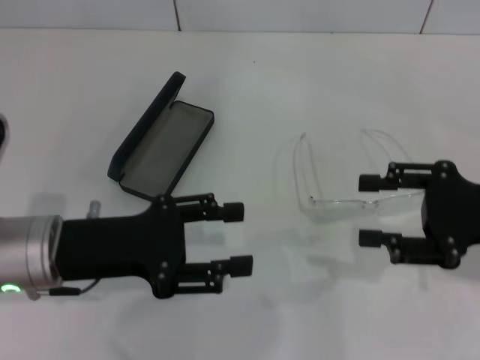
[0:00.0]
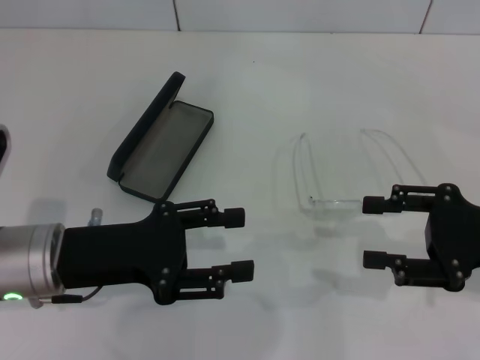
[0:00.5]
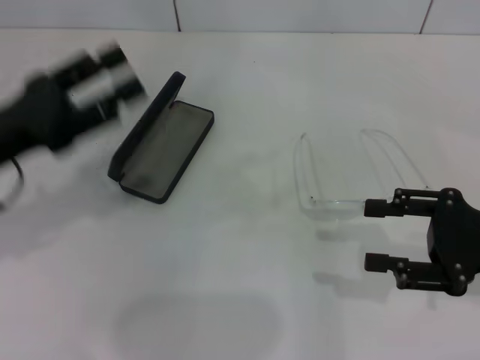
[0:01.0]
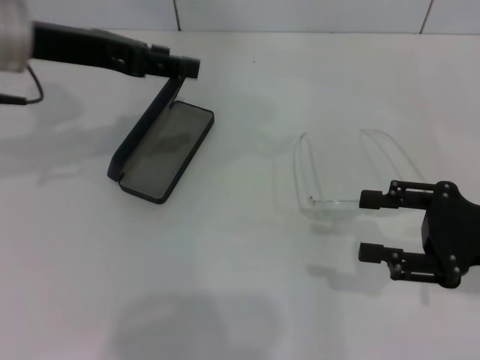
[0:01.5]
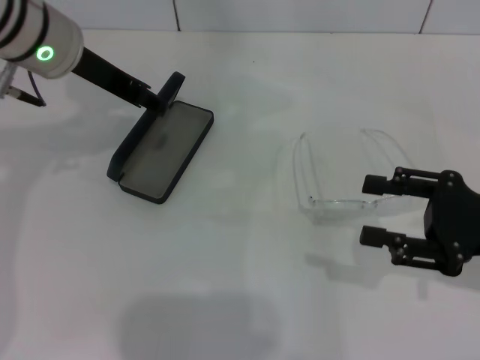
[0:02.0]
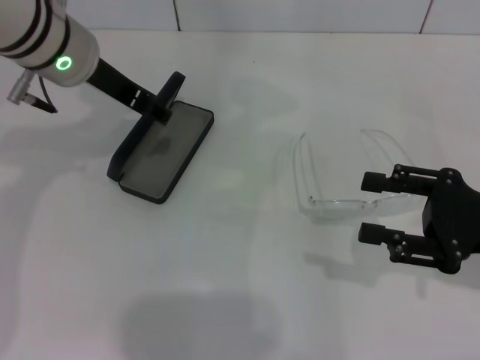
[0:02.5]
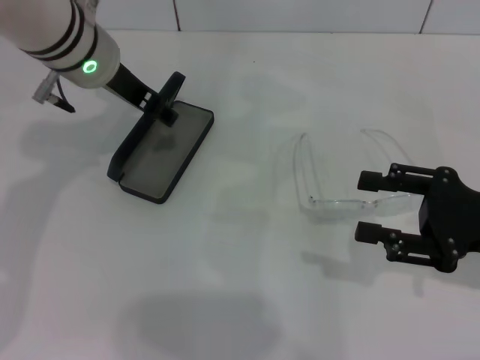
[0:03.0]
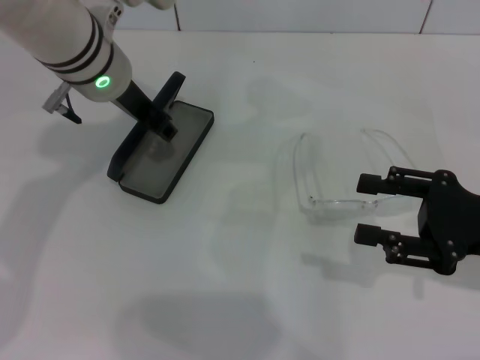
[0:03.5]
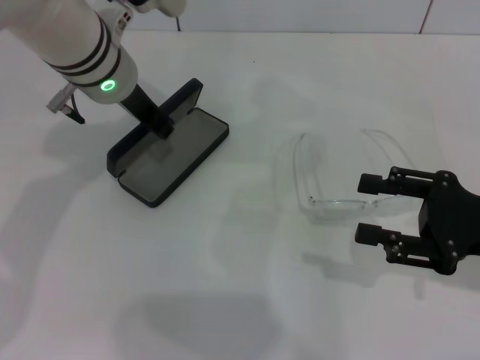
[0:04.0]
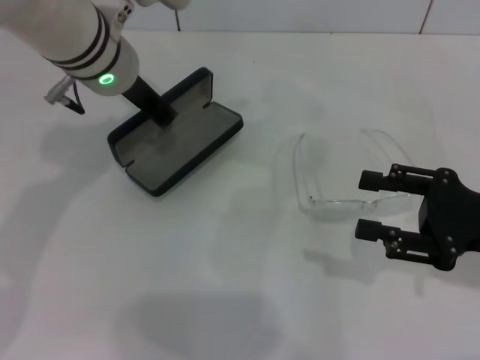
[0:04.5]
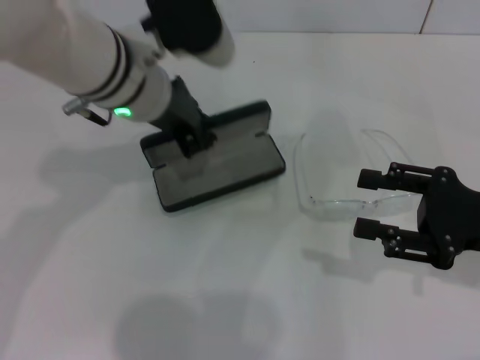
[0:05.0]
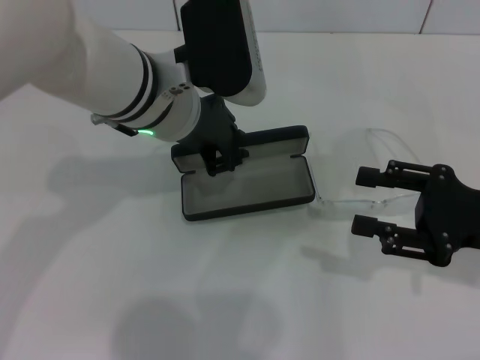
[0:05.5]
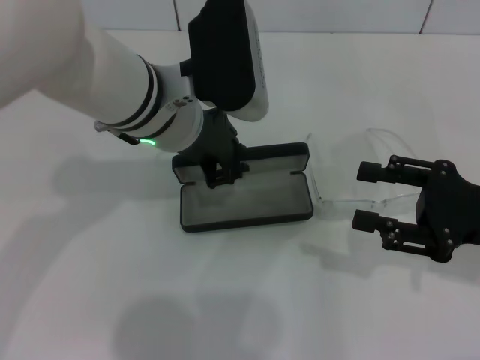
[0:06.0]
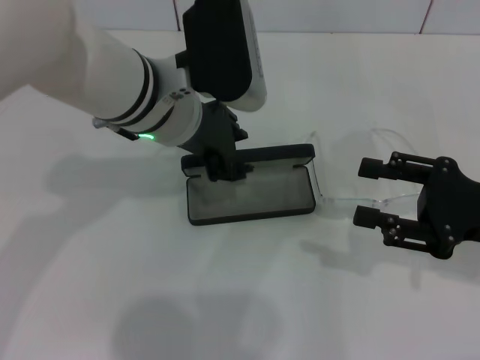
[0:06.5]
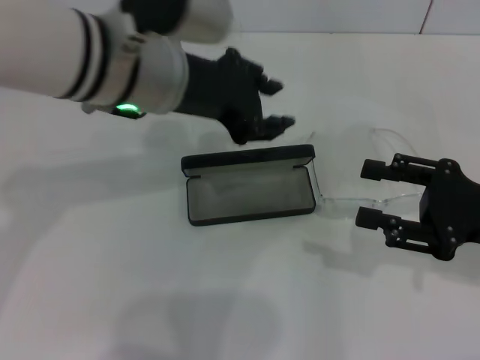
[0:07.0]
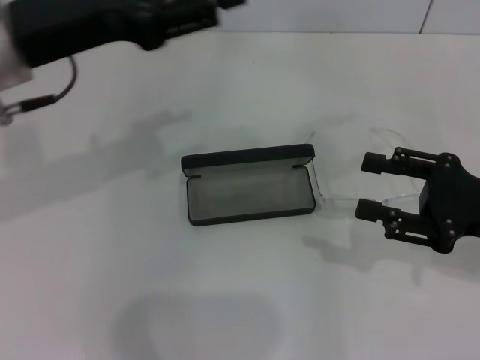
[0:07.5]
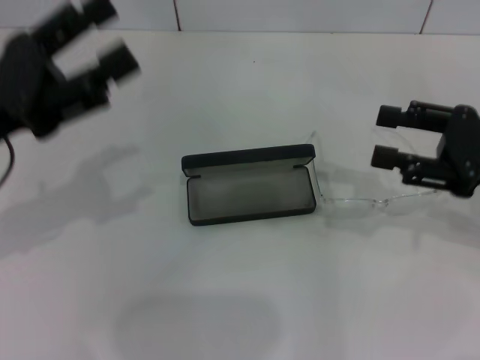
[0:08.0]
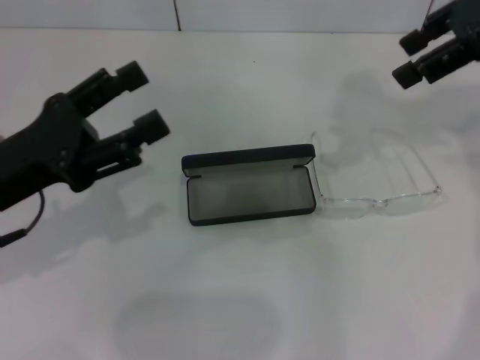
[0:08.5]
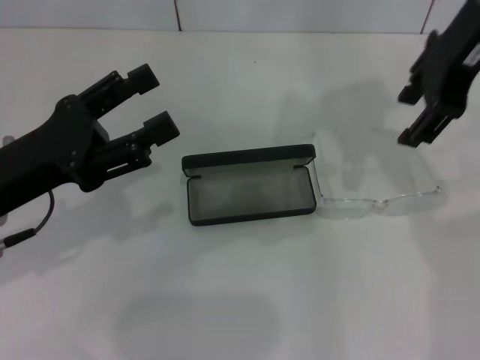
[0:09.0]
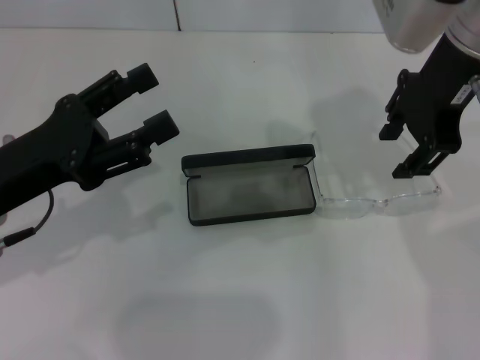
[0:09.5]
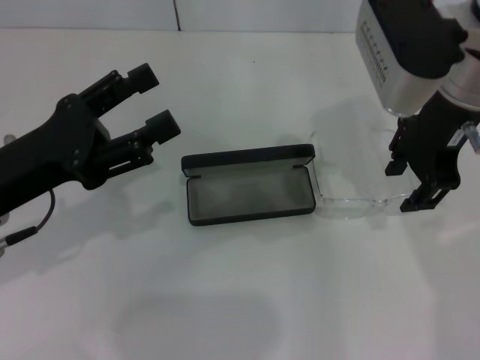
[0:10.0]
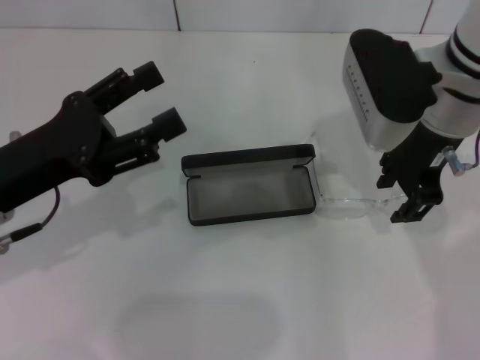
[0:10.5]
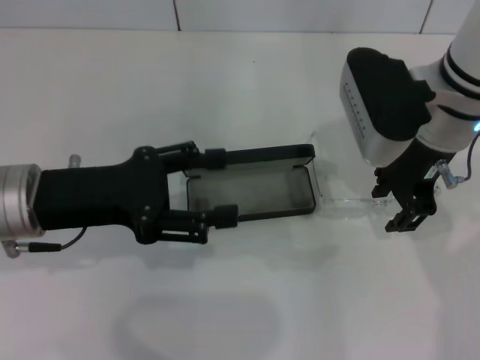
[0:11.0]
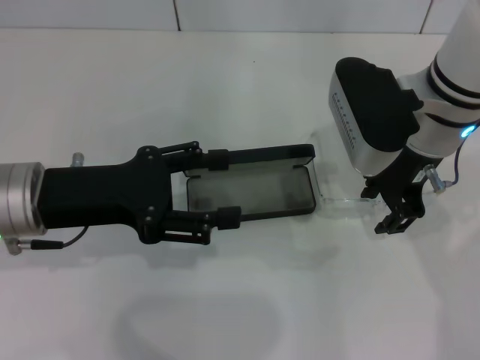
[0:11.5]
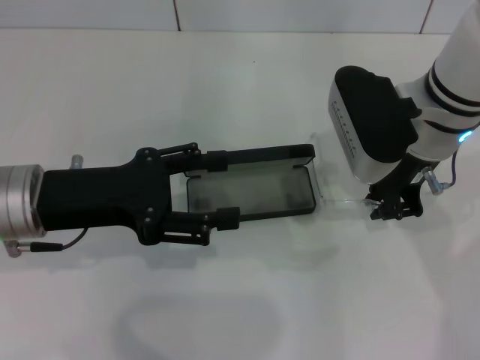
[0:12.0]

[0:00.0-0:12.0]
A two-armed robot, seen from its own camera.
Step, 0:00.0 to 0:04.0: Grab the glasses case with your left hand.
Step, 0:04.5 to 0:06.0: Place the glasses case in the center of the table with your left hand.
0:00.0 to 0:02.0: The left gripper moves forward and upward, about 20 cm.
0:02.0 to 0:04.0: The left gripper shifts by approximately 5 cm.
0:04.0 to 0:06.0: The left gripper is displaced backward by roughly 5 cm.
0:06.0 to 0:08.0: The right gripper changes place by roughly 5 cm, while the left gripper heads to the left and backward, covering about 20 cm, and opens up.
0:08.0 to 0:10.0: The right gripper heads to the left, upward and forward, covering some 20 cm.
0:10.0 to 0:12.0: The right gripper shifts roughly 5 cm downward.

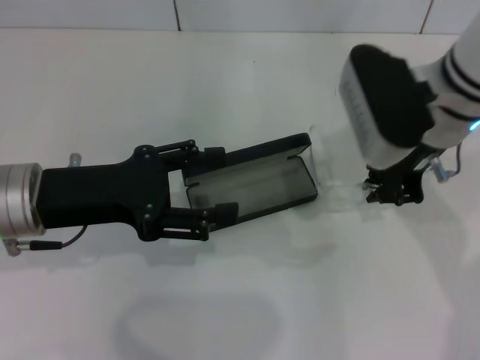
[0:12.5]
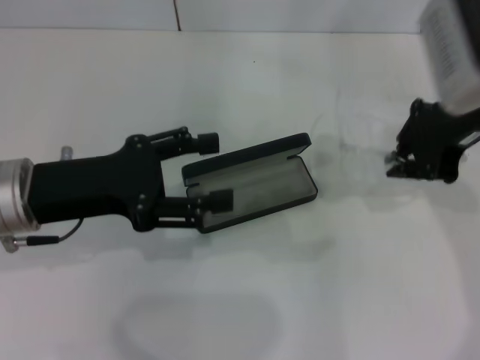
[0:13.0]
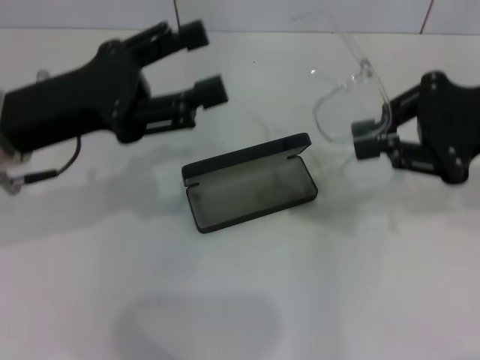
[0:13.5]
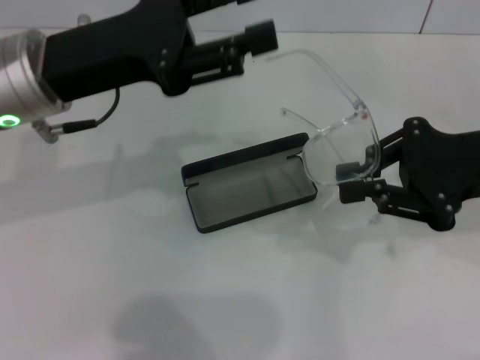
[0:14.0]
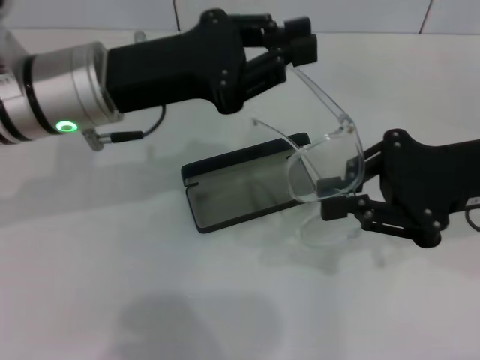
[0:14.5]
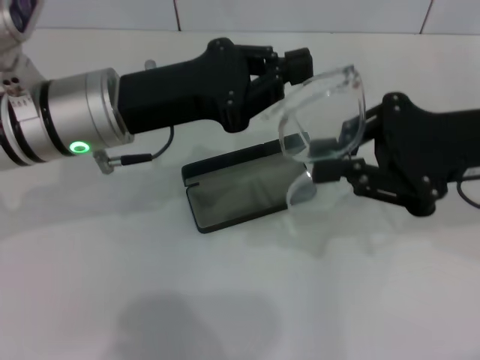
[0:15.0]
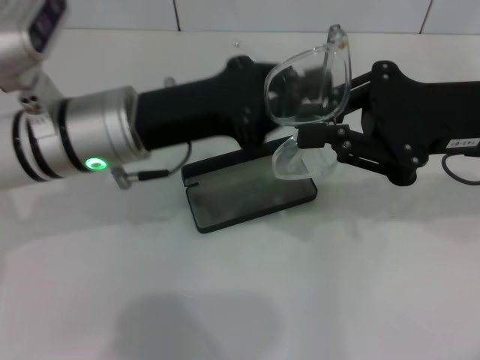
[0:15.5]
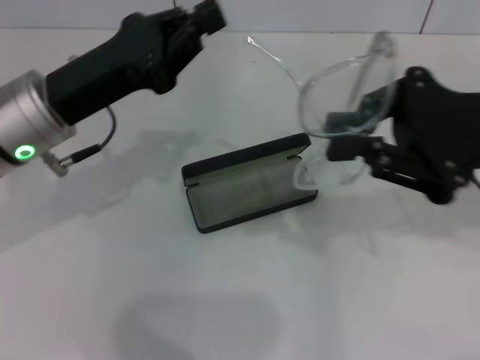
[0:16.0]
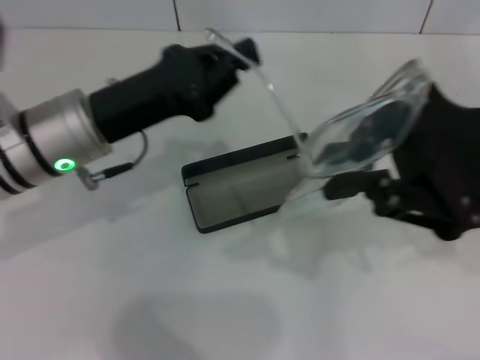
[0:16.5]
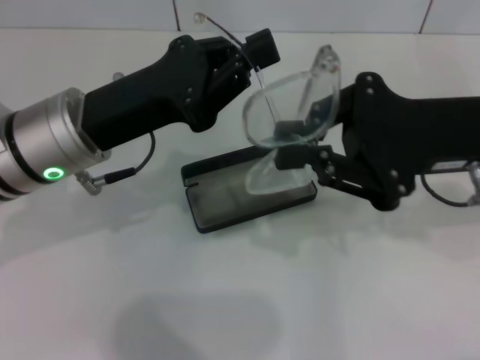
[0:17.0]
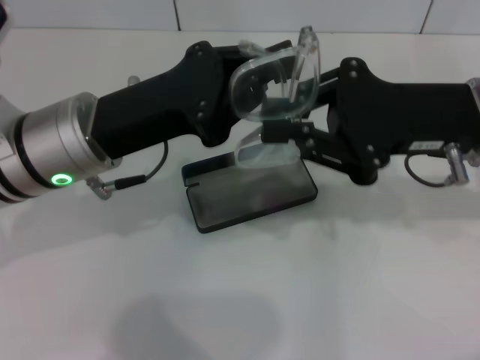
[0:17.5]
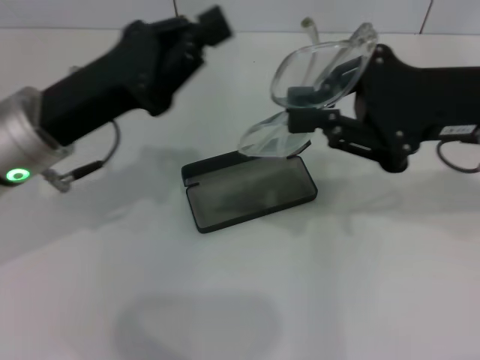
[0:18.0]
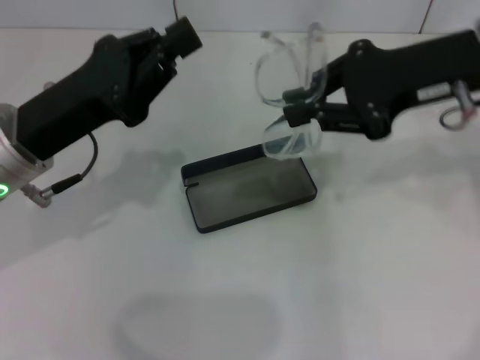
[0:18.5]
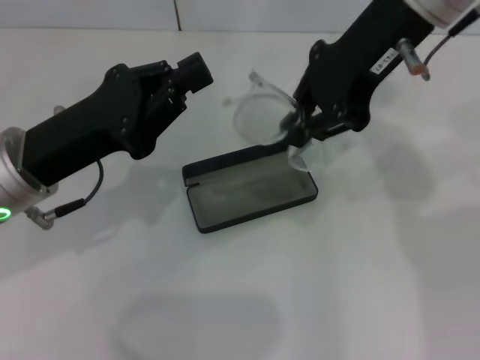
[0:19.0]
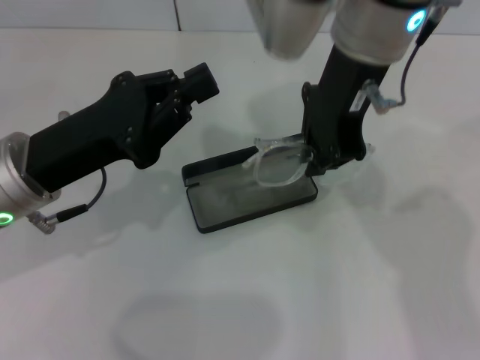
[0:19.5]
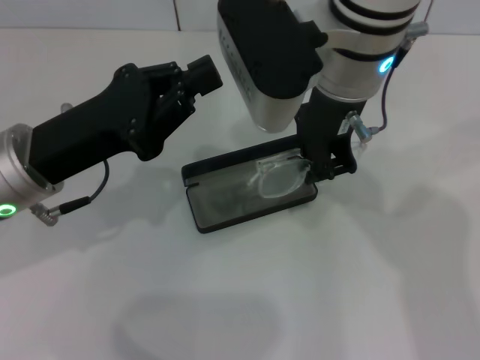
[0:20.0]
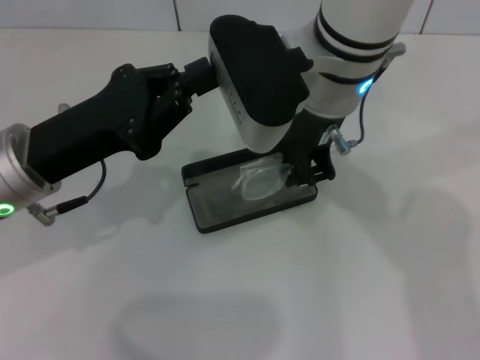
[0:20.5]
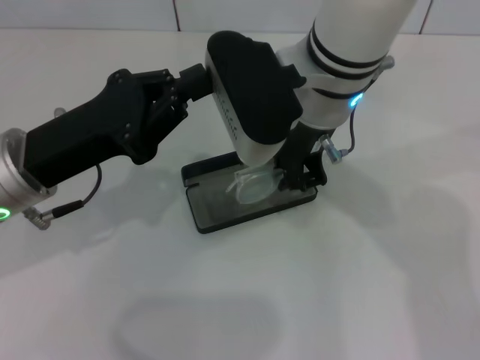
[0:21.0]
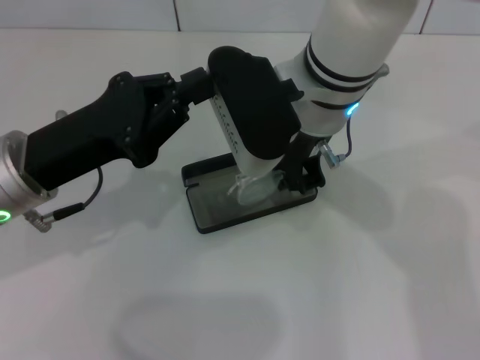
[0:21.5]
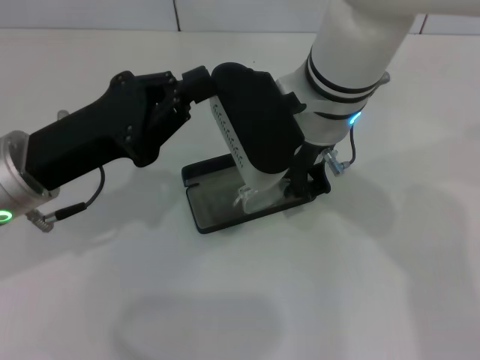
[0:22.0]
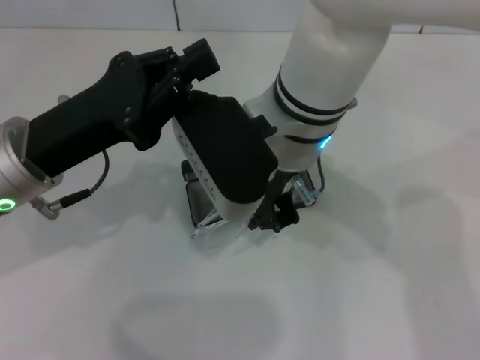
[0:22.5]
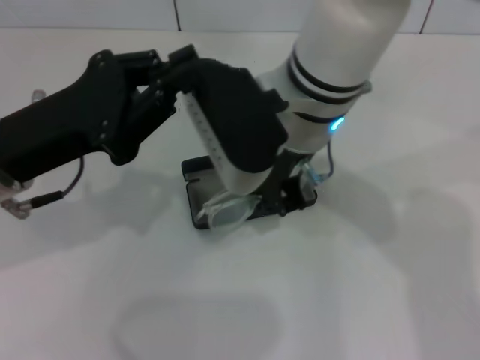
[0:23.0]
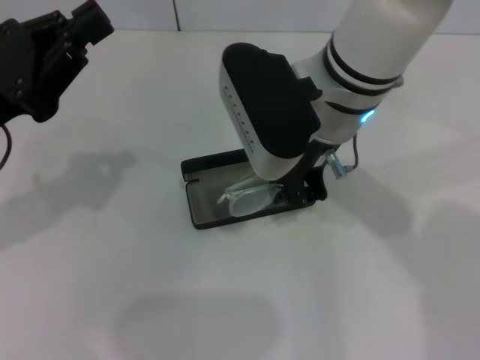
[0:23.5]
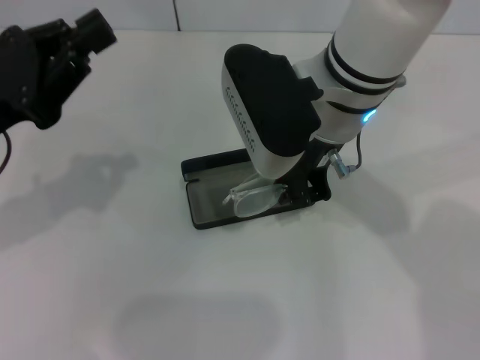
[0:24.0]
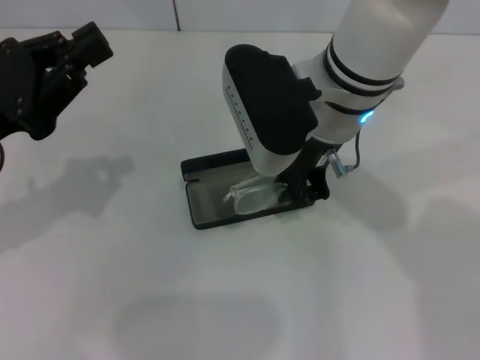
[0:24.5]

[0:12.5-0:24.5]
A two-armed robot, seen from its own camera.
Step, 0:12.5 to 0:17.0: Fold the frame with your left hand.
0:12.5 to 0:14.5: The right gripper goes approximately 10 cm to the right and backward; the left gripper moves to the right, forward and upward, roughly 10 cm, and closes up.
0:14.5 to 0:16.5: The left gripper moves downward, about 5 cm.
0:16.5 to 0:18.5: The right gripper heads forward, covering roughly 5 cm.
0:18.5 to 0:20.5: The right gripper is displaced to the left by some 15 cm.
0:22.5 to 0:24.5: The left gripper is displaced to the left by some 5 cm.

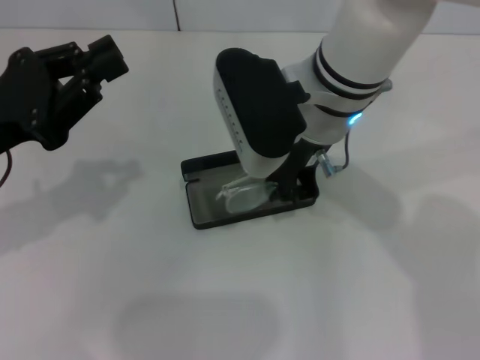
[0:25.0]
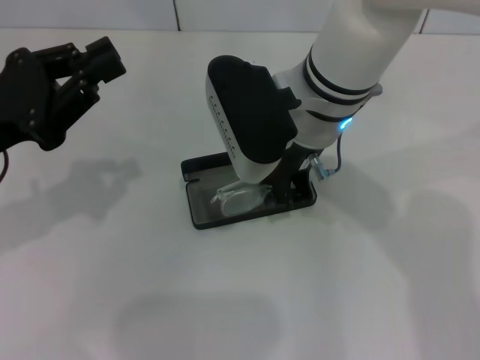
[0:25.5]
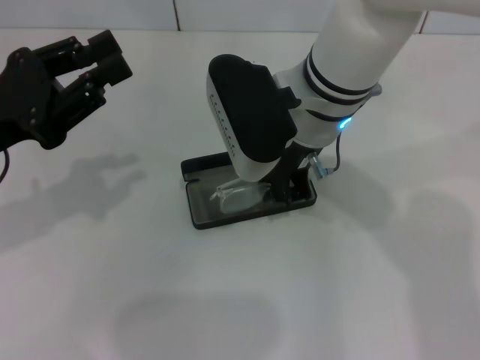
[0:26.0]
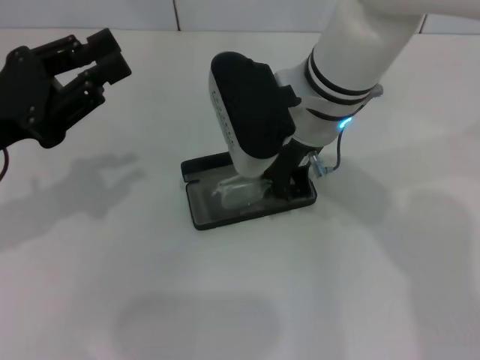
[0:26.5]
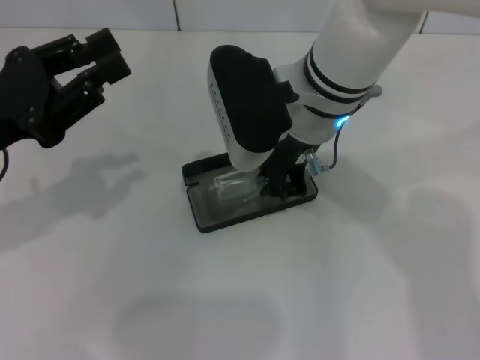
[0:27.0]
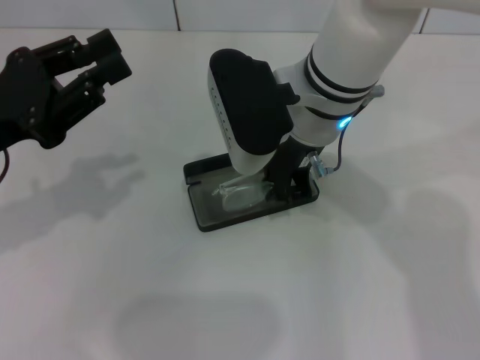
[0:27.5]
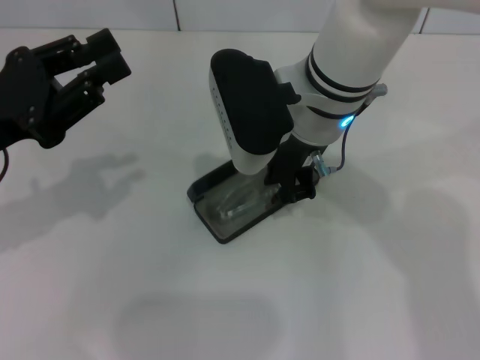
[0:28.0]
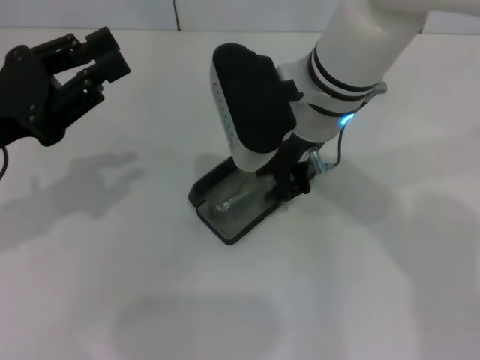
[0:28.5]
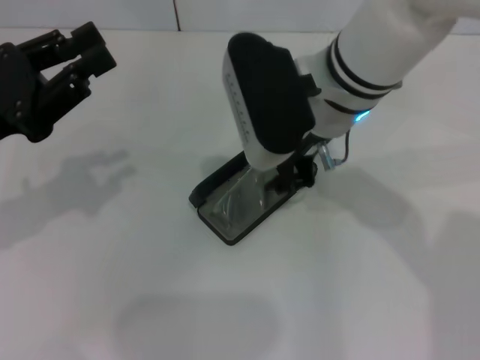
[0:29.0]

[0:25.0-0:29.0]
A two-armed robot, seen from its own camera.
Step, 0:25.0 to 0:28.5: Put the glasses into the case with your right hand.
0:25.0 to 0:27.0: Neither gripper changes place.
0:27.0 to 0:29.0: The right gripper opens up.
